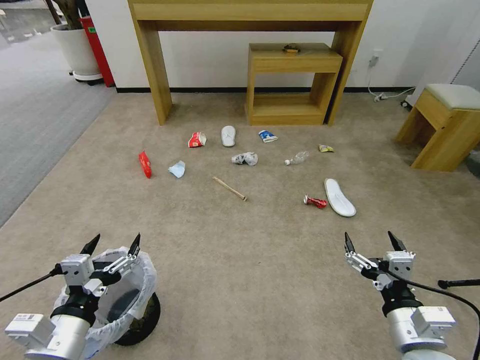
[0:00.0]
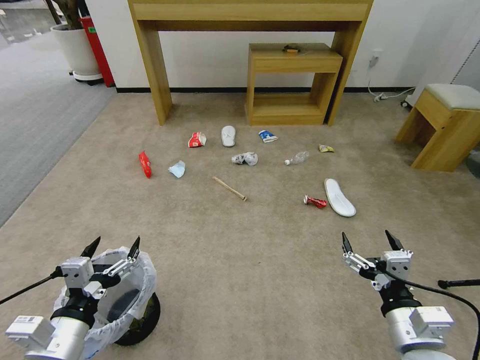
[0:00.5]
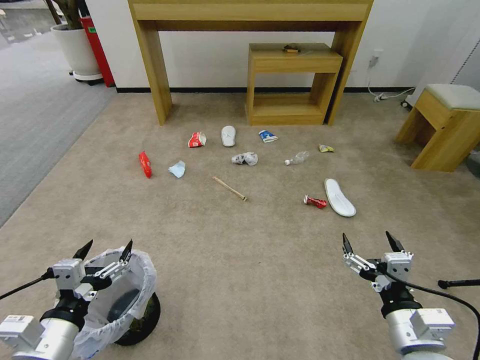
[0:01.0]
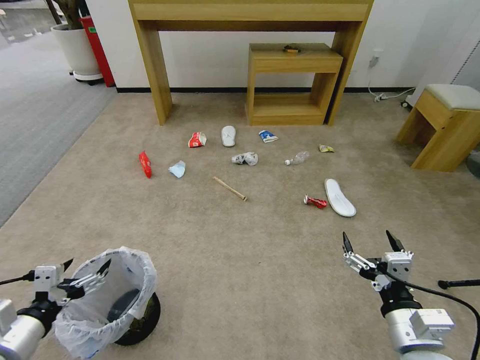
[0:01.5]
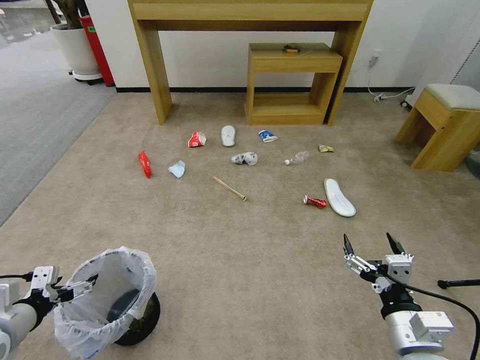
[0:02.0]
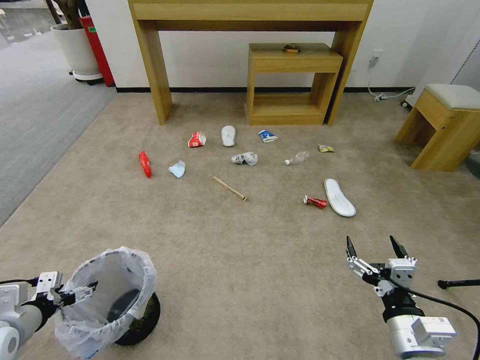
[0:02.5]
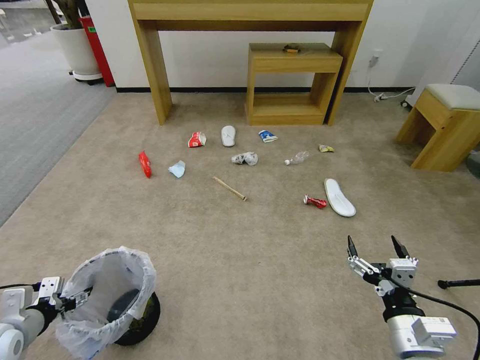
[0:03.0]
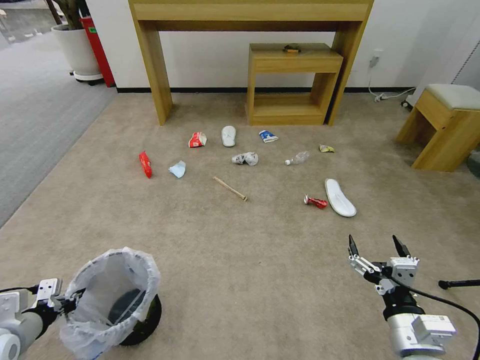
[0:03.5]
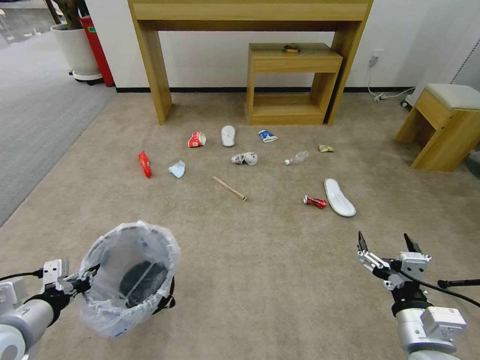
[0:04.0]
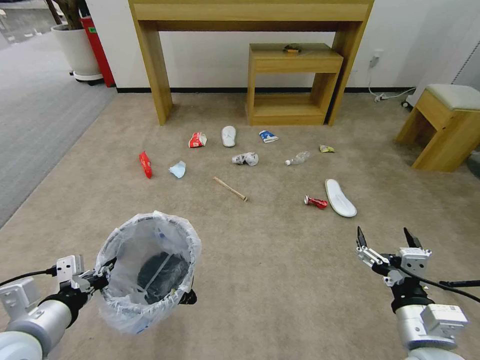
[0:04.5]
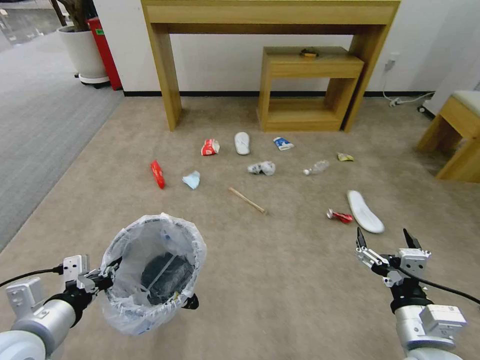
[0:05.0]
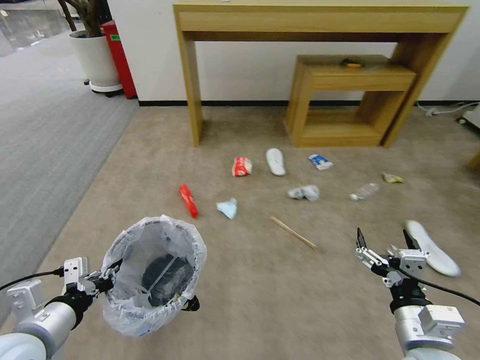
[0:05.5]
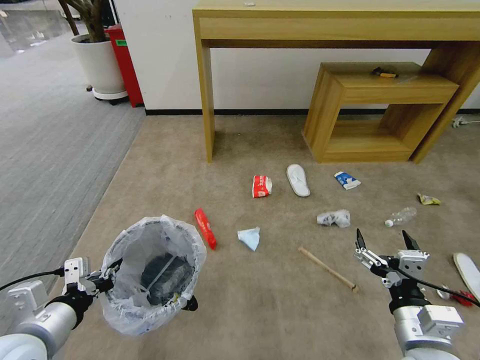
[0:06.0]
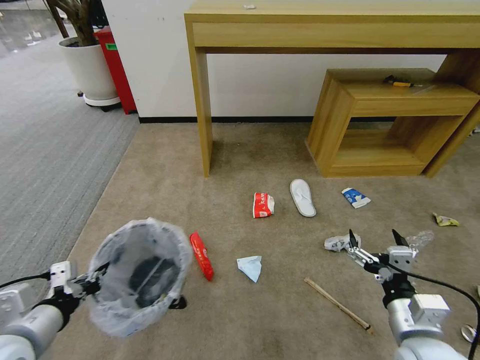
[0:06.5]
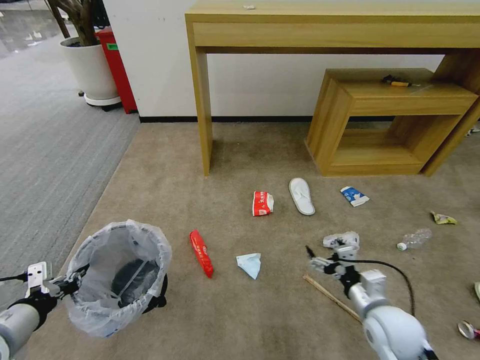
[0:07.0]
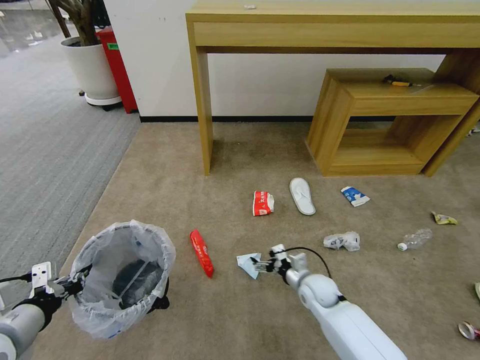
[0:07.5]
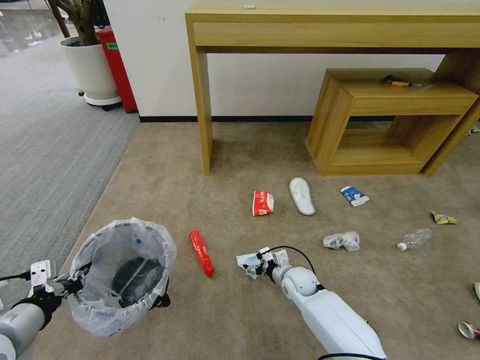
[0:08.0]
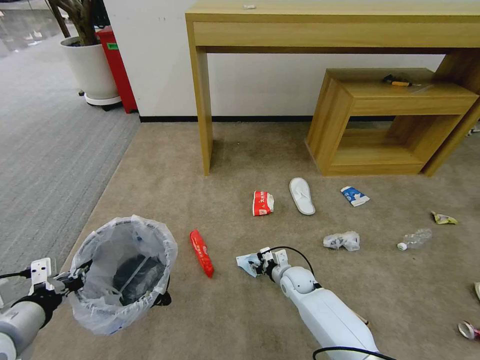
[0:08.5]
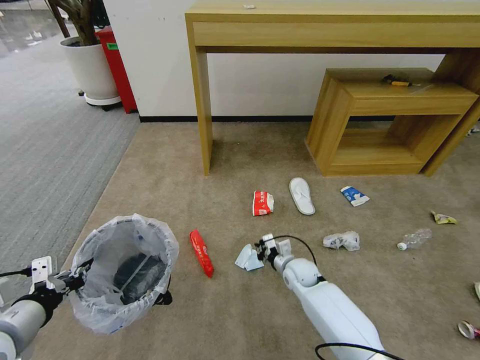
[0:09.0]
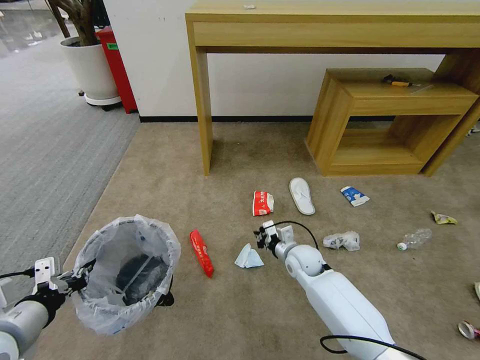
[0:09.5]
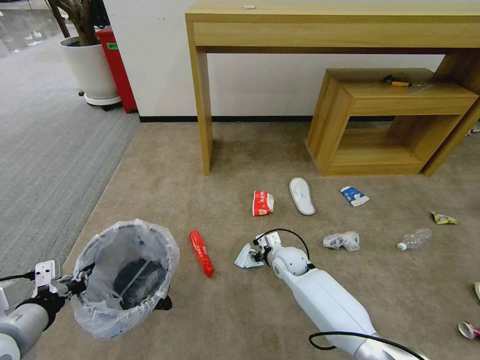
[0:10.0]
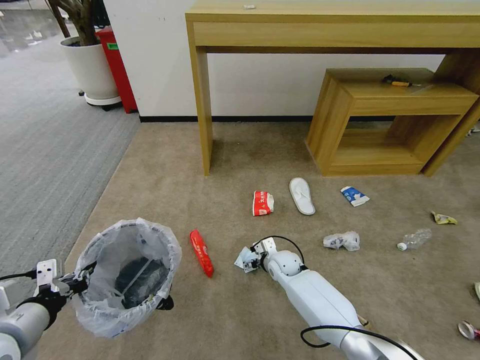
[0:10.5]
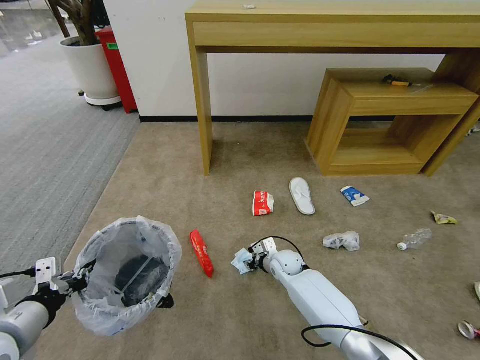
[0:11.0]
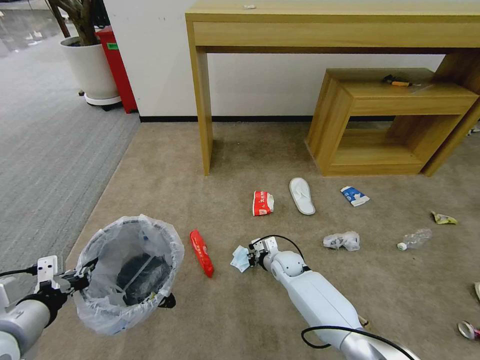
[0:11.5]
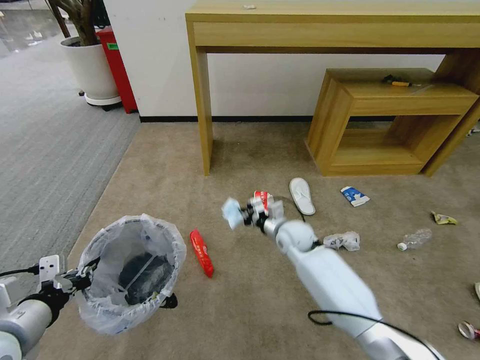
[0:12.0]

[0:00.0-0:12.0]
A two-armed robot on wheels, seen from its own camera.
Task of the whole recording: Pick up the trash bin and place the garbage on the floor into it.
0:02.0 to 0:04.0: The left gripper closes its fingers.
0:04.0 to 0:06.0: The left gripper moves to the right, some 5 cm.
0:06.0 to 0:08.0: The left gripper heads to the left, covering roughly 5 cm. Meanwhile the right gripper goes some 35 cm forward, downward and to the left.
0:08.0 to 0:10.0: The right gripper is displaced upward by approximately 5 cm, and closes its fingers.
0:10.0 to 0:12.0: The right gripper is displaced upward by about 10 cm, and closes.

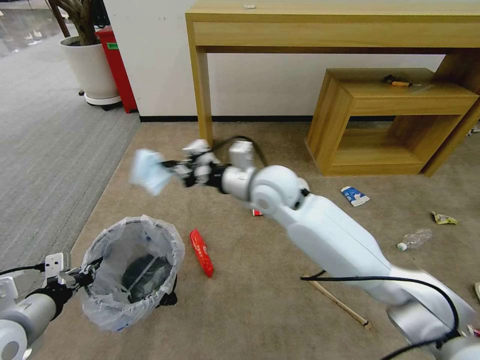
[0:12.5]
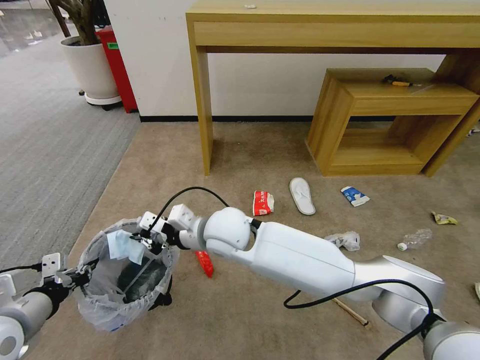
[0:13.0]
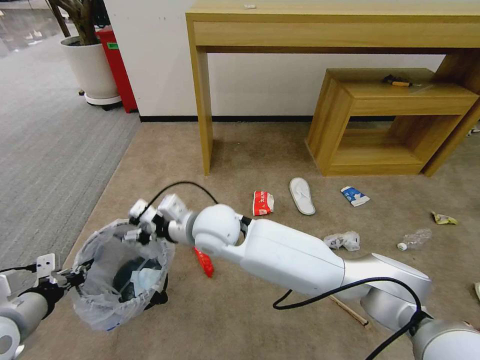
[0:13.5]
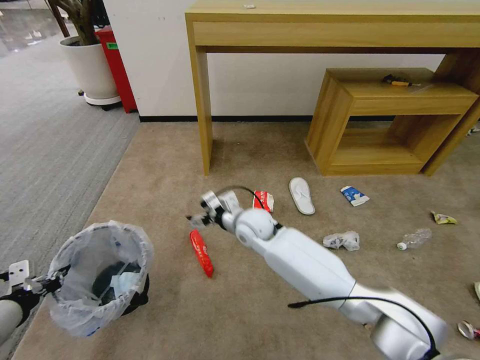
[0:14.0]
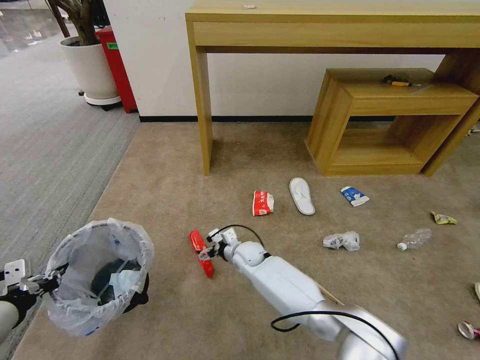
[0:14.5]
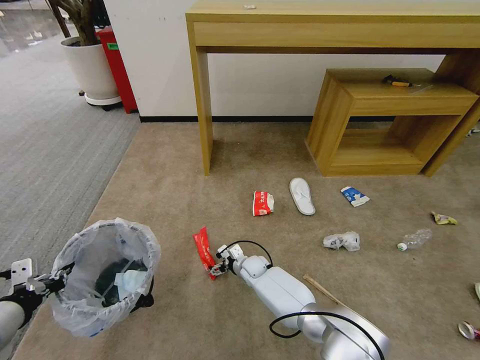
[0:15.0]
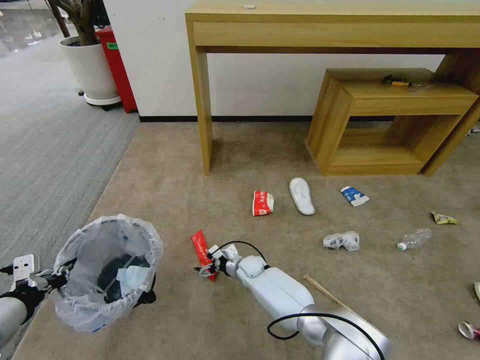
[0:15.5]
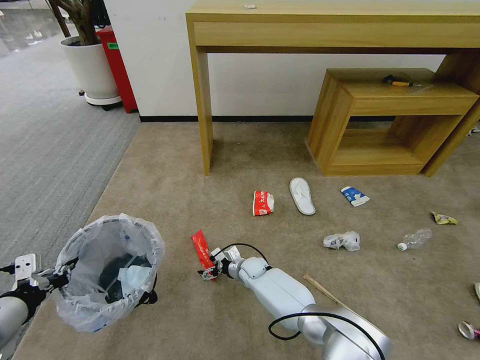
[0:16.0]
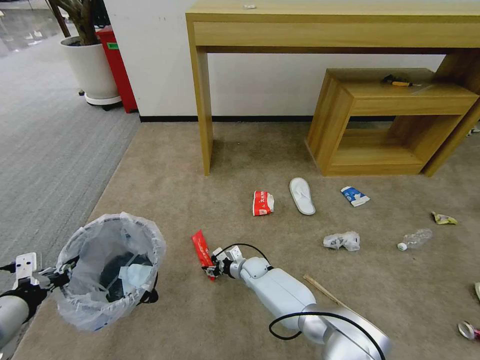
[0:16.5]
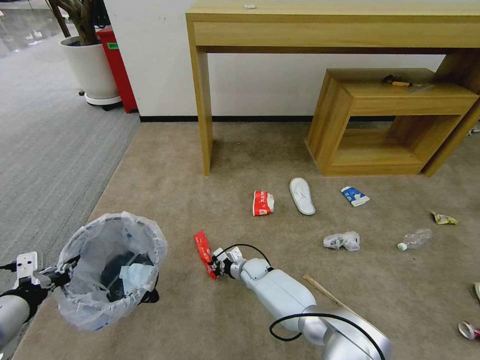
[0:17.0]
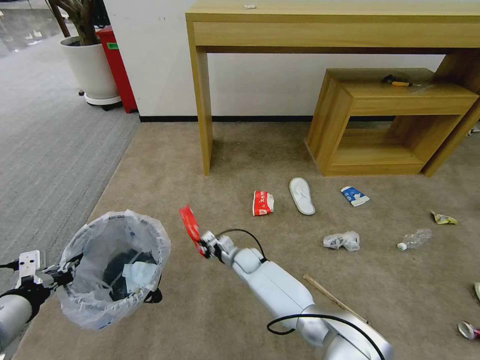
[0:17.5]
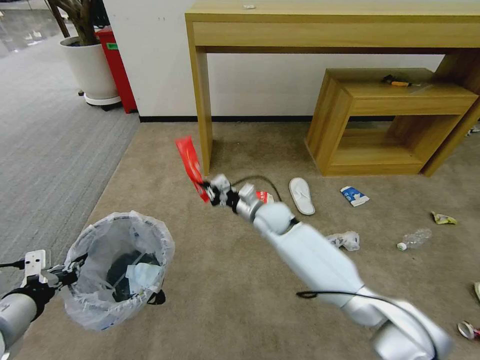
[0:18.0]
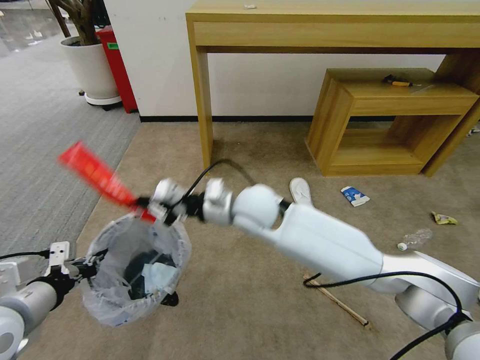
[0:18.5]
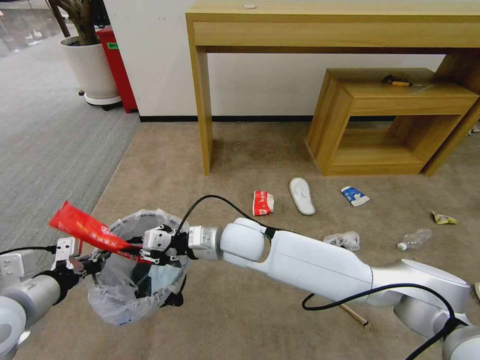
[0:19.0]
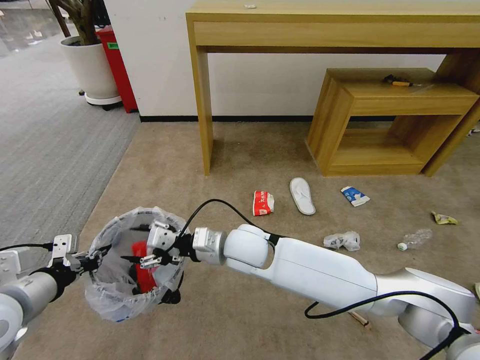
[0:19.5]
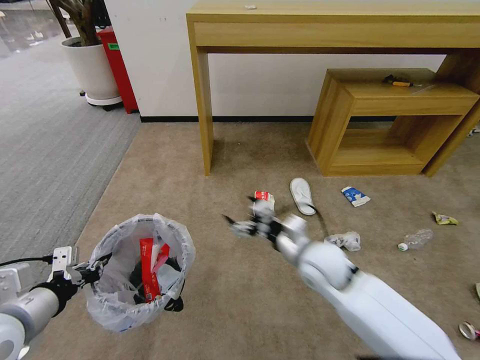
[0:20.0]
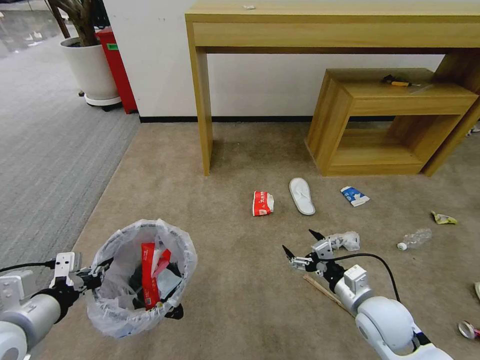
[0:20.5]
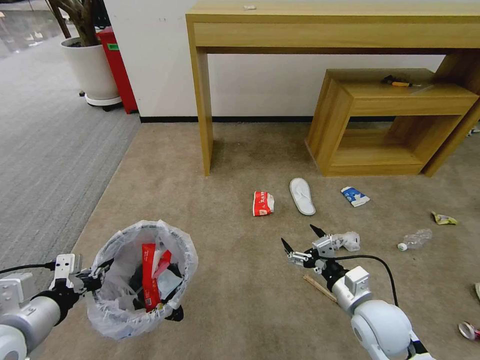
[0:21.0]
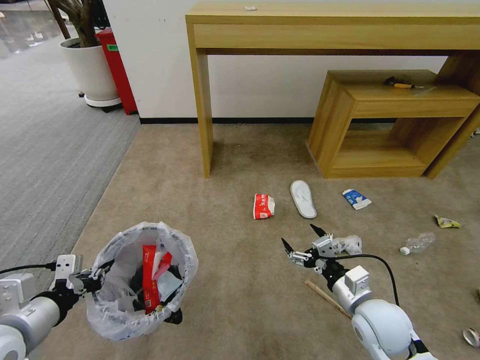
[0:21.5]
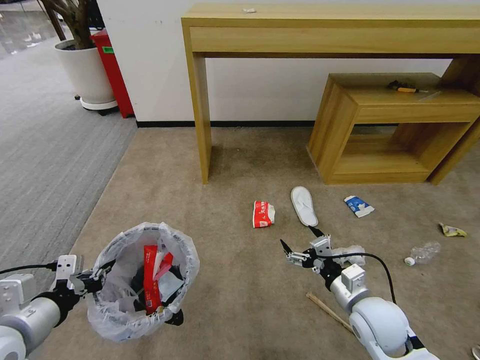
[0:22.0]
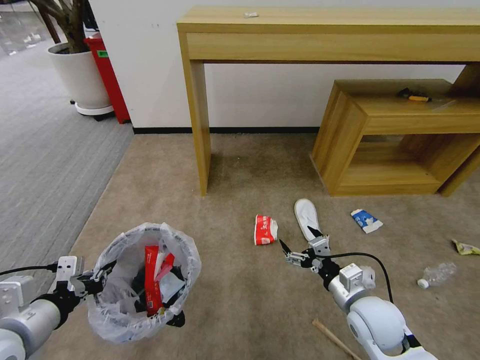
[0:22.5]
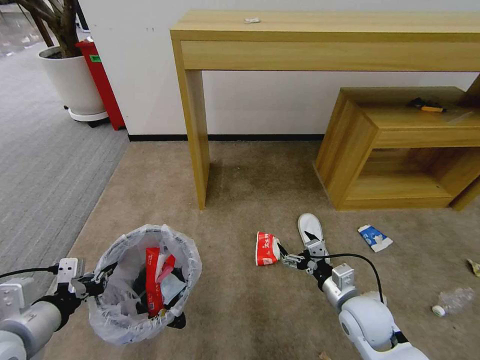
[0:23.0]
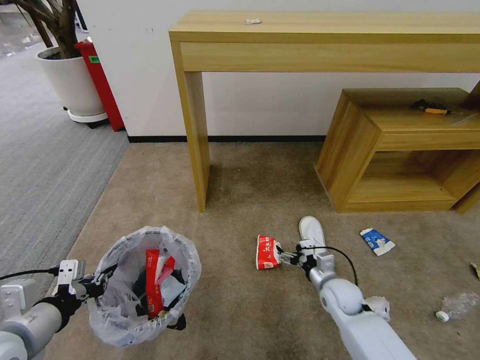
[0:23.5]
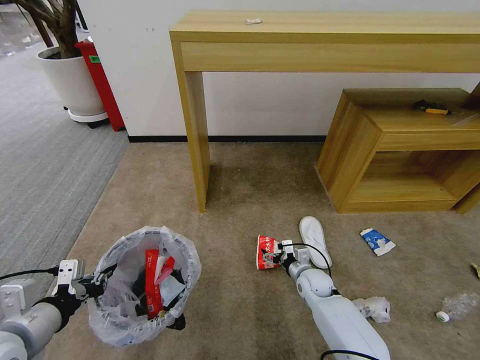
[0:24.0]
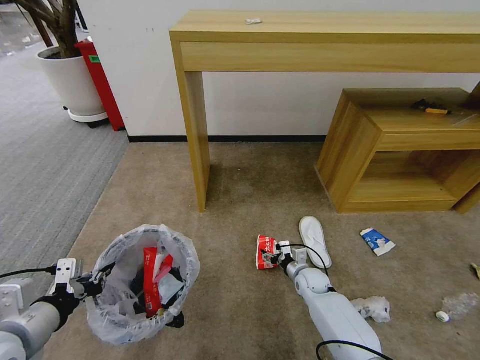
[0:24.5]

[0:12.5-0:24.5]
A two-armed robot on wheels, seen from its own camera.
Task of the whole recording: Pick up the trash bin and place the garbage on the floor into it.
0:12.5 to 0:14.5: The left gripper shifts about 5 cm to the left, while the right gripper heads downward, covering approximately 30 cm, and opens up.
0:14.5 to 0:16.5: The right gripper travels downward by some 10 cm, and closes up.
0:16.5 to 0:18.5: The right gripper shifts some 35 cm upward, and closes up.
0:18.5 to 0:20.5: The right gripper is displaced to the right, backward and downward by about 35 cm, and opens its fingers.
0:22.5 to 0:24.5: The right gripper goes approximately 25 cm downward and forward.

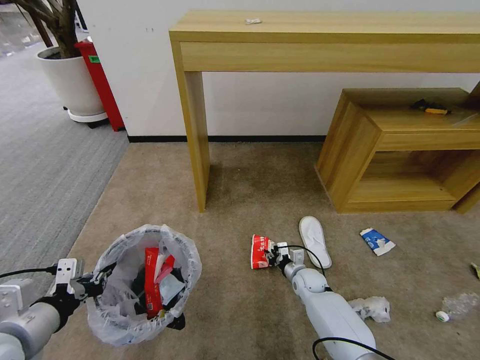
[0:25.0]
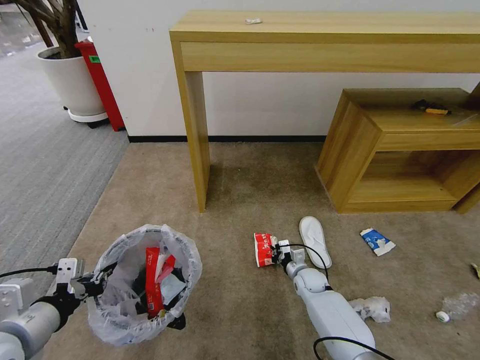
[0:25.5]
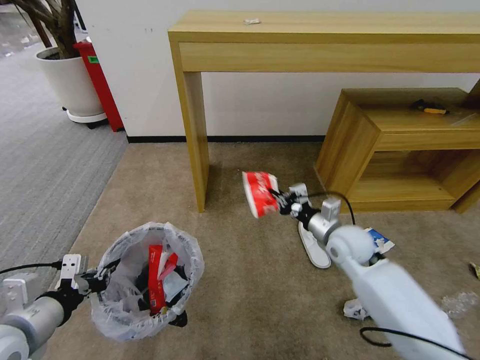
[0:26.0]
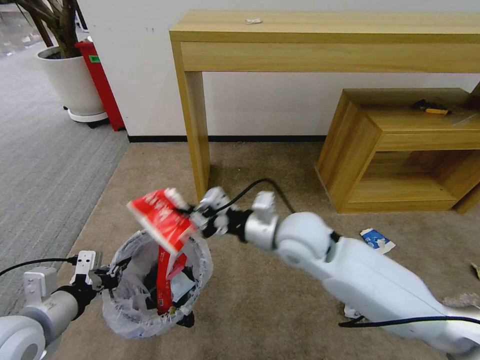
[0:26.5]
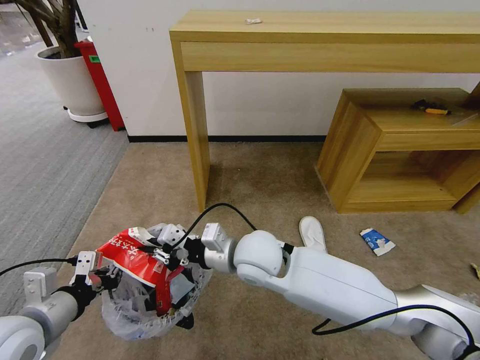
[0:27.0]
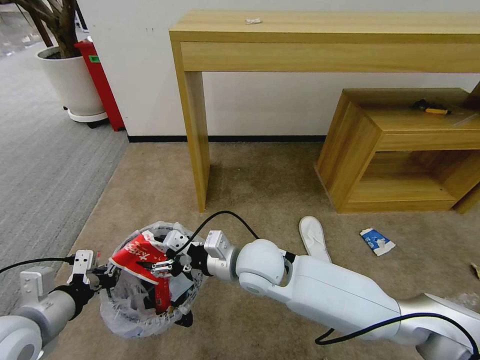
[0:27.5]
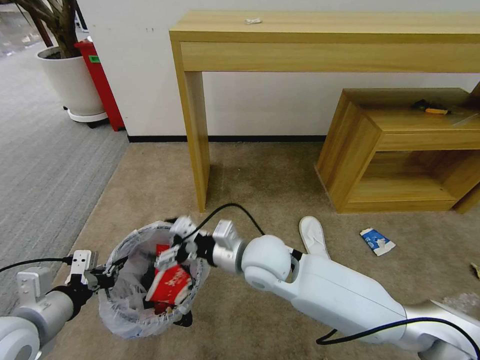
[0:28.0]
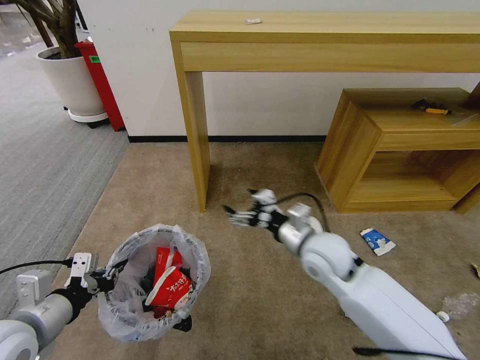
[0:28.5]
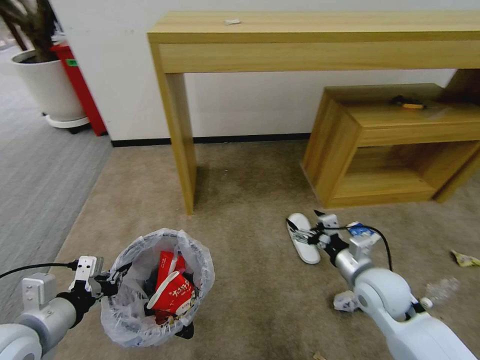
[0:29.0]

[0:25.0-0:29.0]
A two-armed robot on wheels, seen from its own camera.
Task of the whole recording: Pick up the trash bin and place the garbage on the floor into it.
0:25.0 to 0:27.0: The right gripper moves upward and to the left, approximately 35 cm.
0:27.0 to 0:29.0: The right gripper shifts approximately 25 cm to the right, and opens its fingers.
